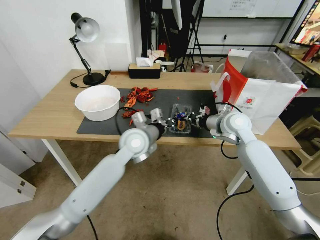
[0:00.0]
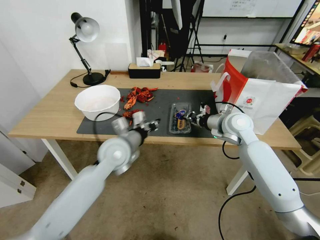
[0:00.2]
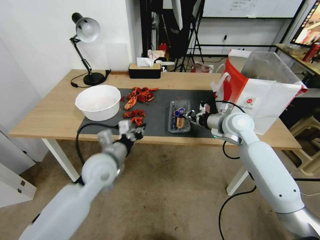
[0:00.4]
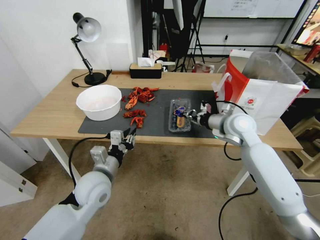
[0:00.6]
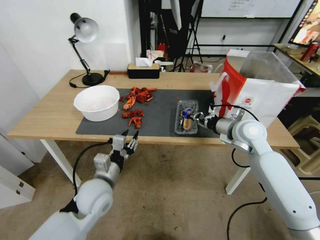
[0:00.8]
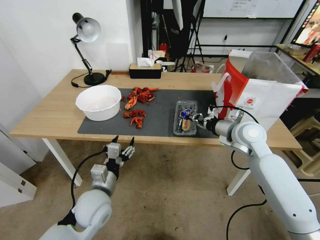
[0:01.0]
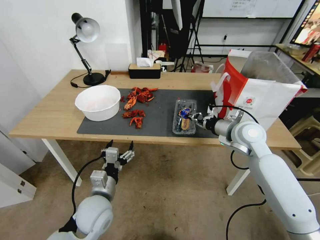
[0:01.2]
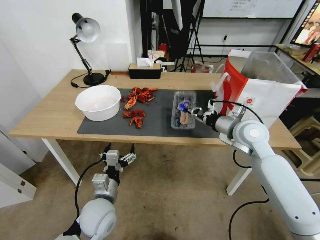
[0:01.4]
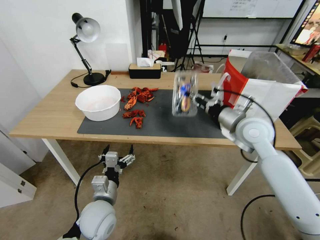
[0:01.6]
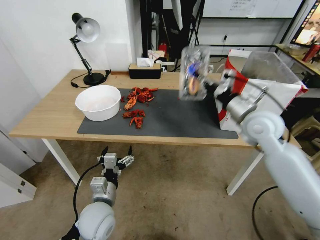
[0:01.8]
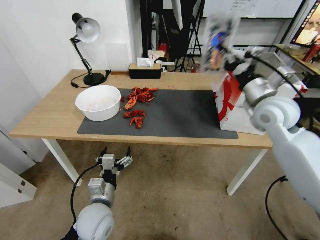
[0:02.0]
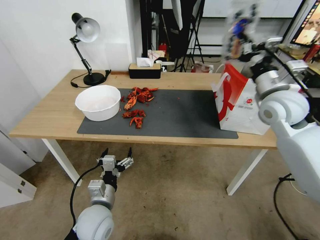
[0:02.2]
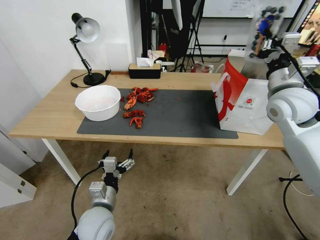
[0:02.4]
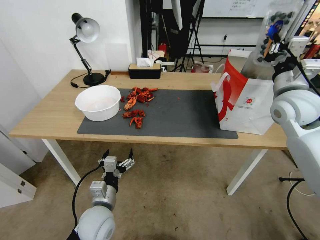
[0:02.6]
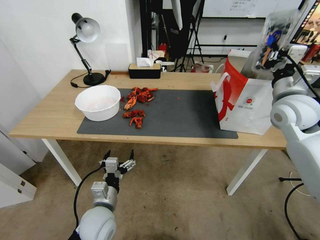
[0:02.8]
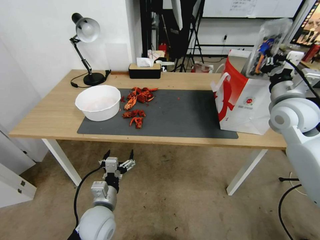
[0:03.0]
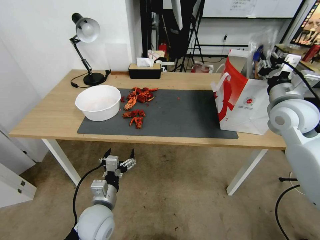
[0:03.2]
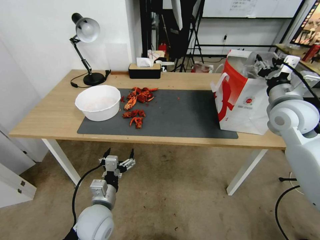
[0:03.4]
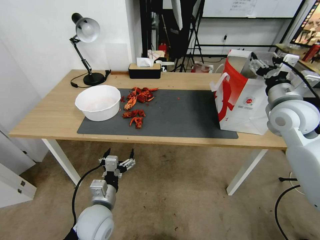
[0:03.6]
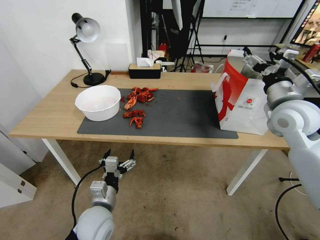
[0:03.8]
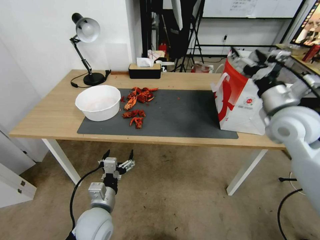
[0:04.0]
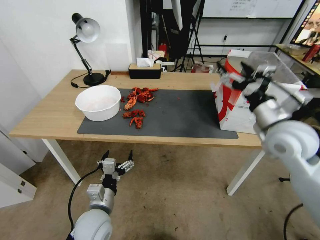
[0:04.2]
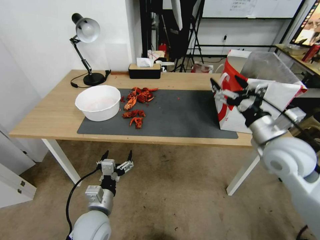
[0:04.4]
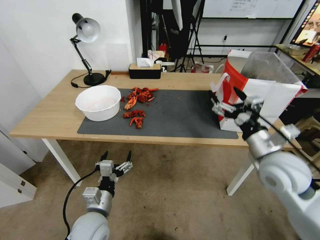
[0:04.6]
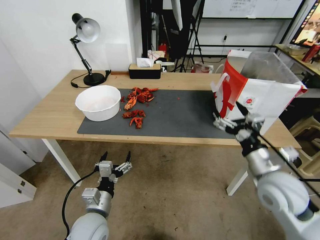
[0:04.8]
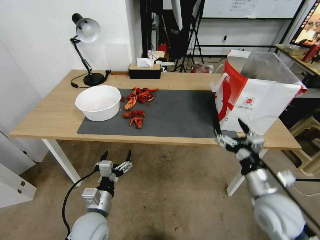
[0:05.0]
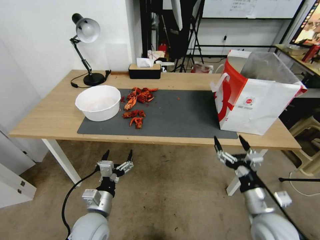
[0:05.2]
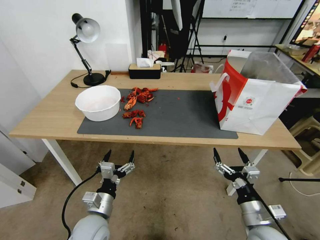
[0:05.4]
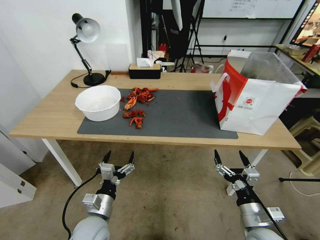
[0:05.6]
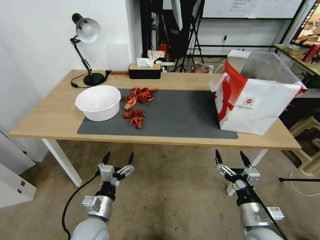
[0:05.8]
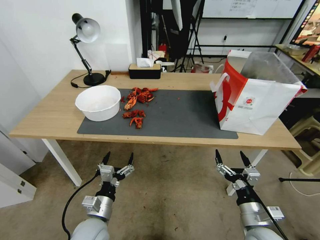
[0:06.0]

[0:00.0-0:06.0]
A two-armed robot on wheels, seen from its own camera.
Task of the whole recording: Close the takeout container lid, then place the container into the takeout bag.
0:00.0 to 0:01.6: The right gripper shifts roughly 5 cm backward; the left gripper travels backward, downward and to the left by approximately 25 cm, and opens up.
0:01.6 to 0:03.0: The right gripper moves to the right and upward, about 10 cm.
0:03.0 to 0:04.4: The right gripper heads backward and downward, covering about 10 cm, and opens up.
0:04.4 to 0:06.0: The right gripper goes about 25 cm downward and backward.
